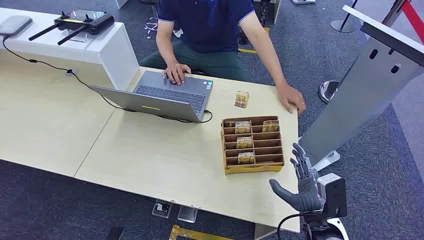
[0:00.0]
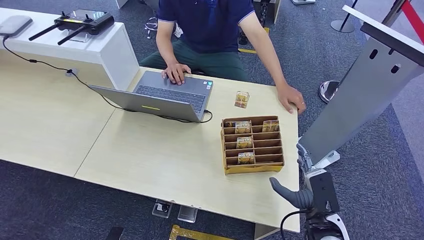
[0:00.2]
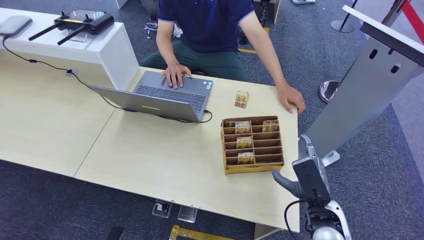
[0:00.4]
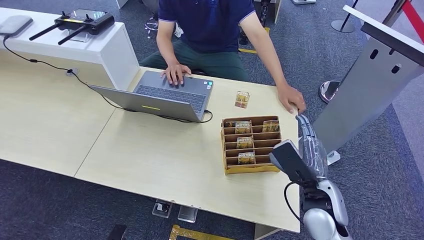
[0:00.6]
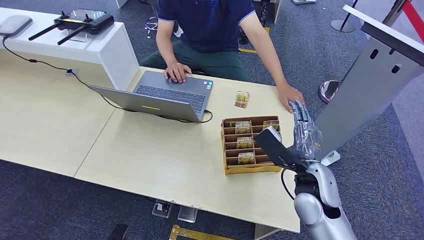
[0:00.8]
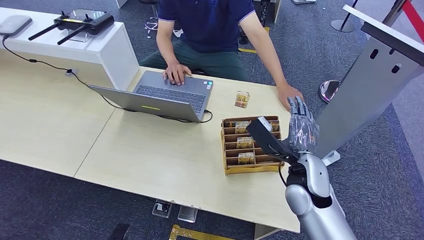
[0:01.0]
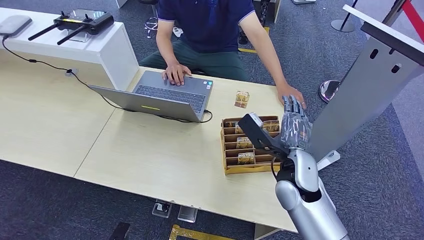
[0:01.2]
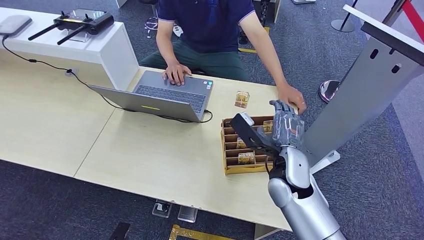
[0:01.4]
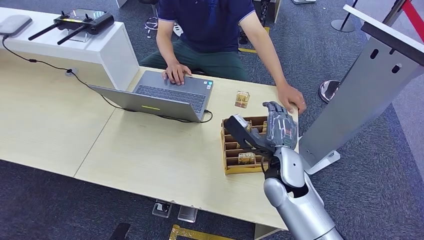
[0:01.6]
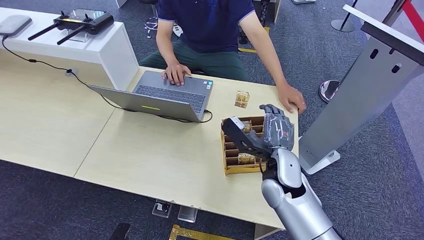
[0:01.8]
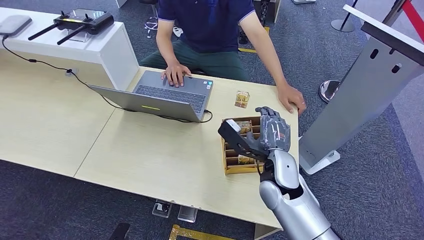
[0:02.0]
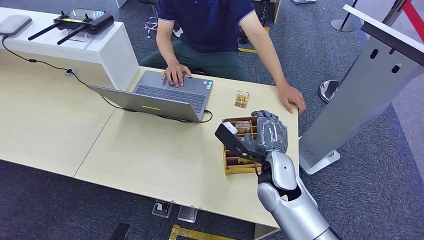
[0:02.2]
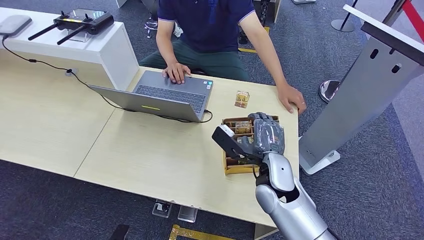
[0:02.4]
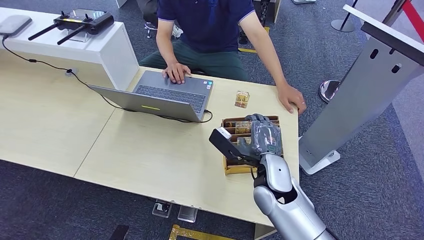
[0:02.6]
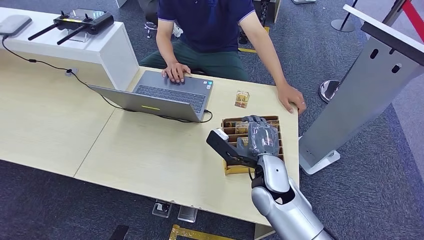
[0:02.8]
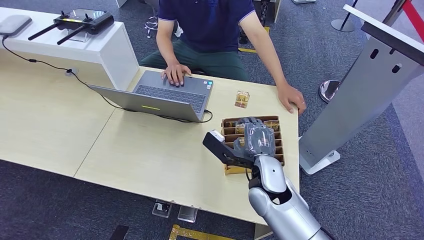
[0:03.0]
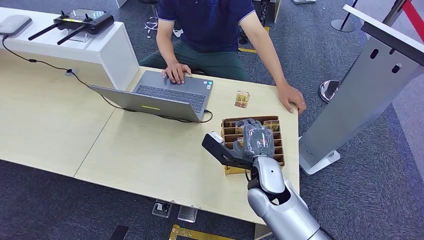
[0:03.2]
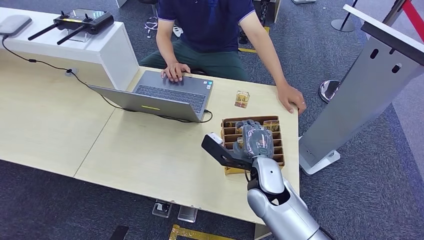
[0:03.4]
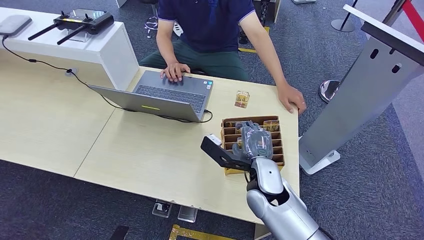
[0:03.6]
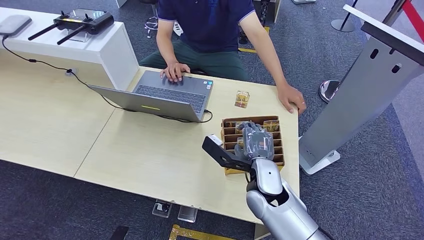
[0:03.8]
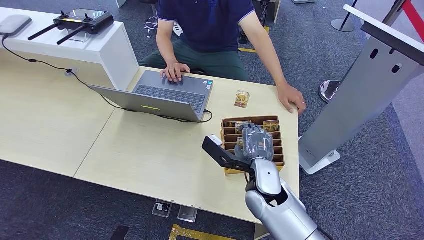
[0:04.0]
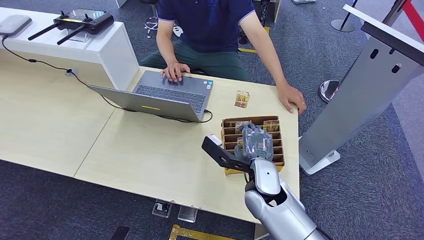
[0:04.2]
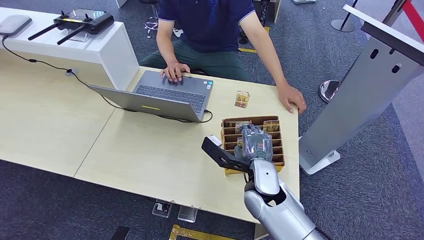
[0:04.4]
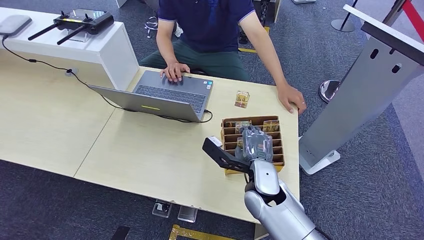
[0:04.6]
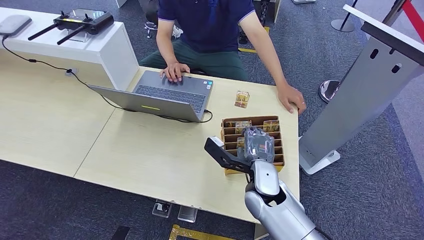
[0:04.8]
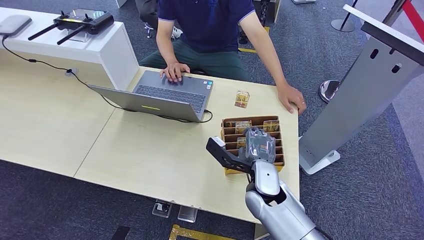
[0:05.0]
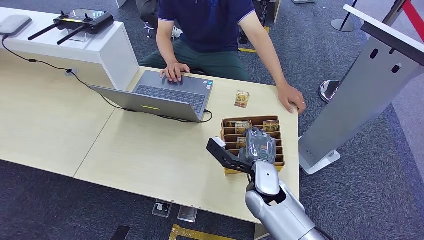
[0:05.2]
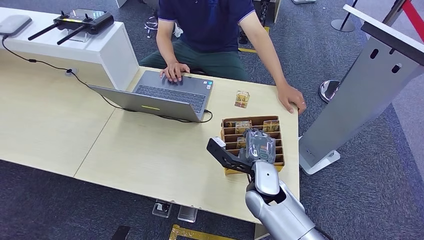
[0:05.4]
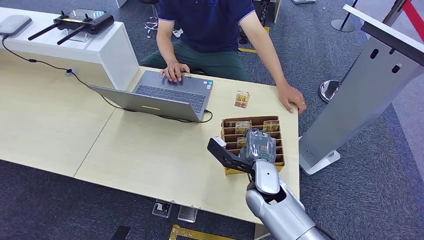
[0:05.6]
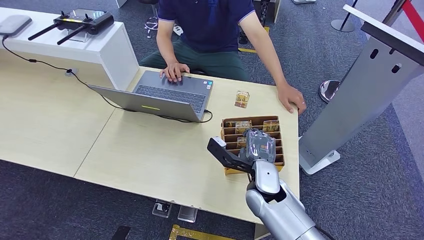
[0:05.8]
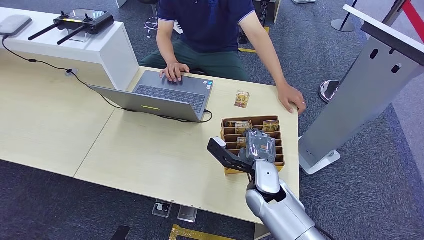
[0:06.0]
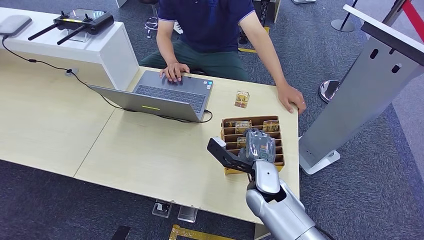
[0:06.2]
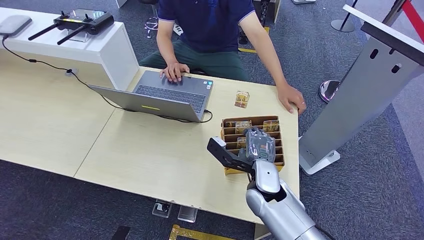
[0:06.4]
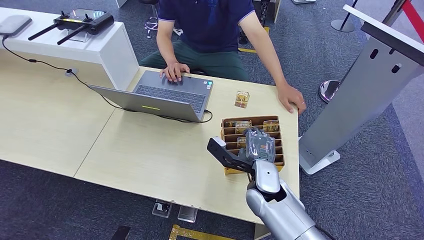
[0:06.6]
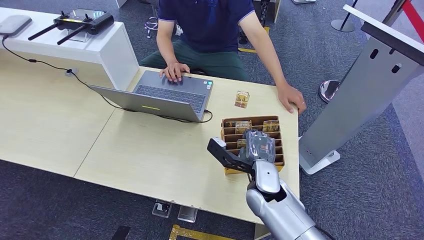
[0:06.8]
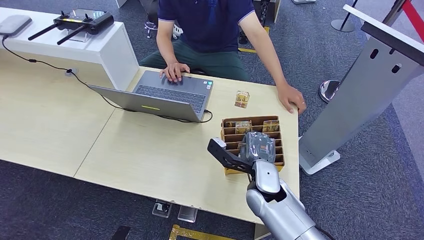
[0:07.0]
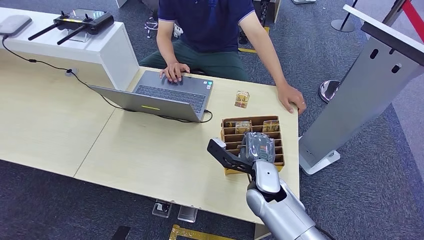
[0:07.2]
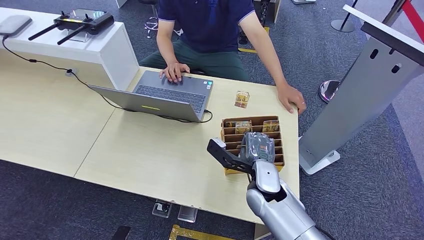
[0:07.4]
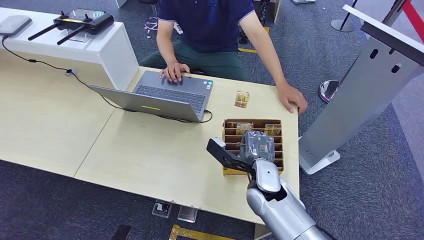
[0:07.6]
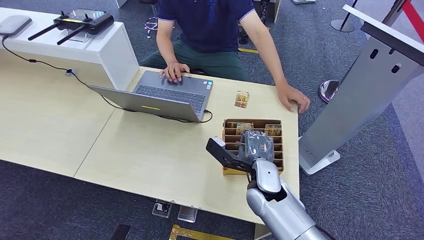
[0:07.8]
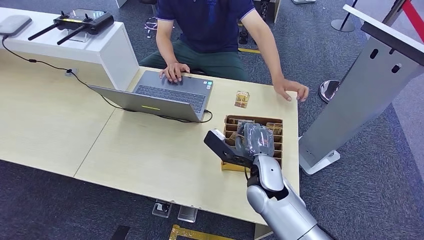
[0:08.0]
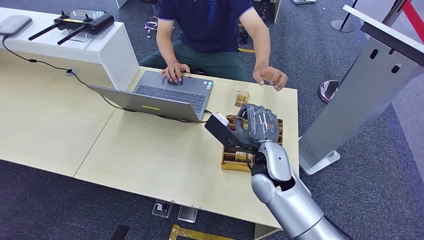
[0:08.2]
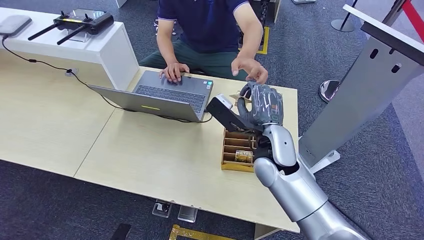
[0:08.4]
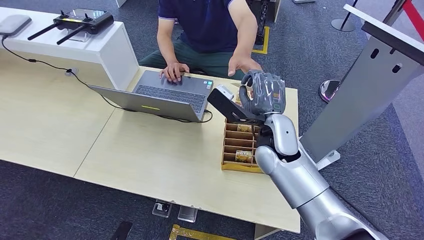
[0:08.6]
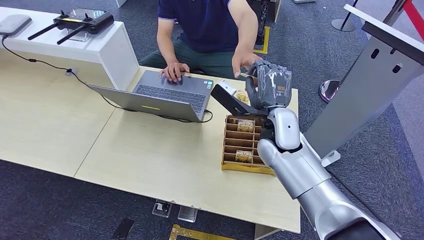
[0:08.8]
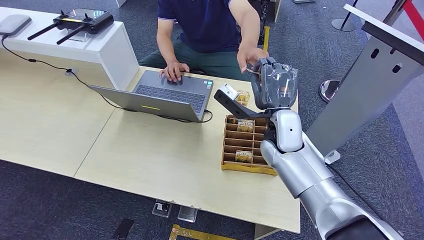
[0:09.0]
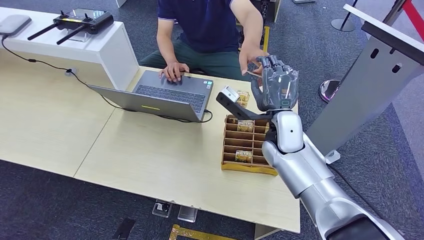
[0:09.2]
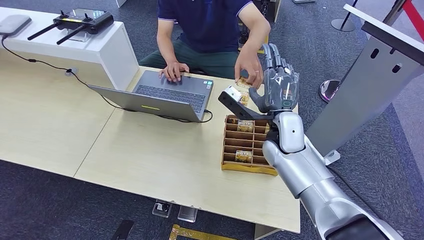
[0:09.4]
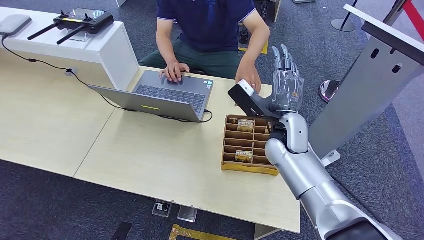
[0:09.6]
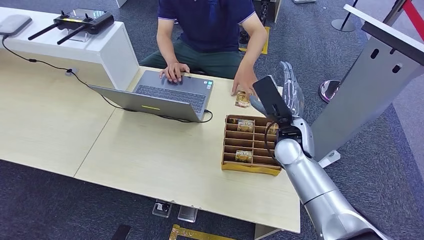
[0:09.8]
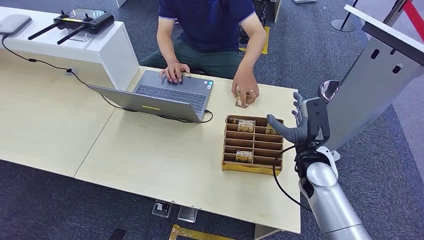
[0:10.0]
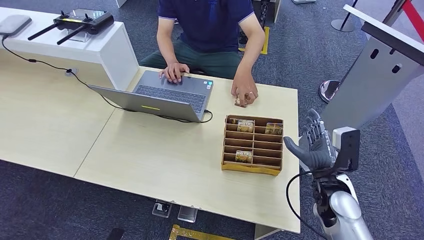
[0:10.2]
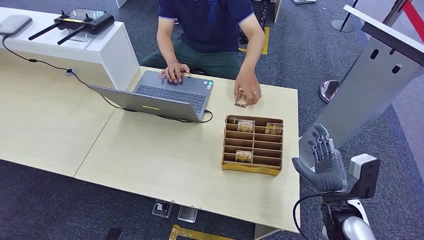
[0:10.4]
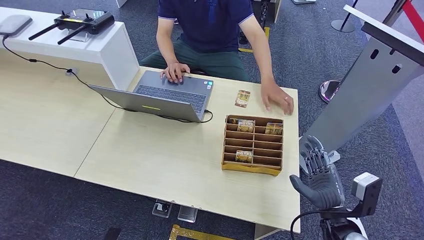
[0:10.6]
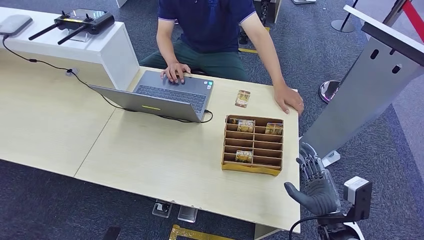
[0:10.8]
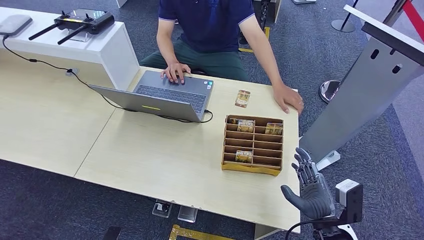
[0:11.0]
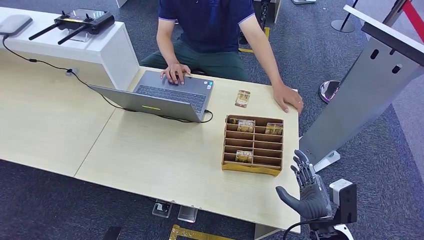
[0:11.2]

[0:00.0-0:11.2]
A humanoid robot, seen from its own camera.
Task of the whole recording: Pick up the card and hand it over to the target person.
Step, 0:00.0 to 0:08.0: Pick up the key card from the card box.
Step, 0:08.2 to 0:11.2: Hand the key card to the target.
0:01.6 to 0:04.8: The hands move only a little.
0:04.8 to 0:06.4: Neither hand changes place.
0:06.4 to 0:08.0: The right hand is displaced upward by about 10 cm.
0:08.0 to 0:09.6: The right hand shifts some 10 cm to the right and forward.
0:09.6 to 0:11.2: The right hand shifts roughly 25 cm backward, downward and to the right.
